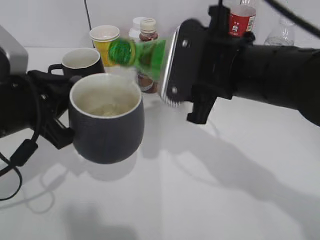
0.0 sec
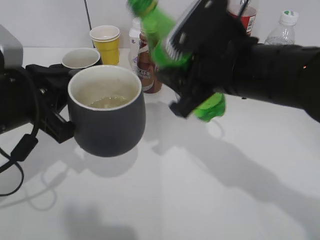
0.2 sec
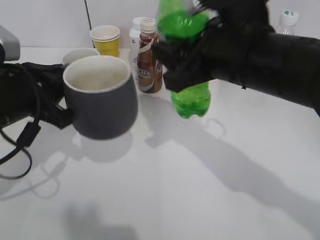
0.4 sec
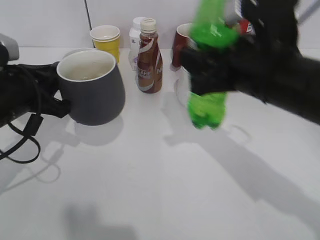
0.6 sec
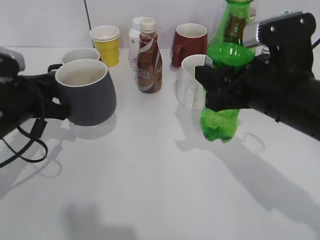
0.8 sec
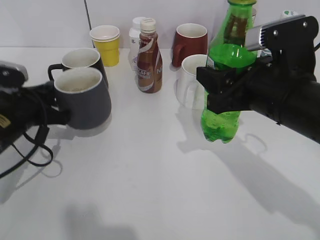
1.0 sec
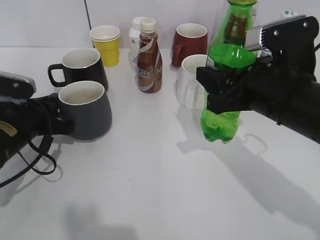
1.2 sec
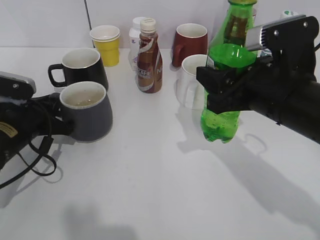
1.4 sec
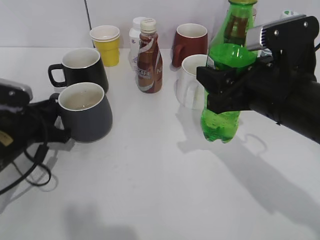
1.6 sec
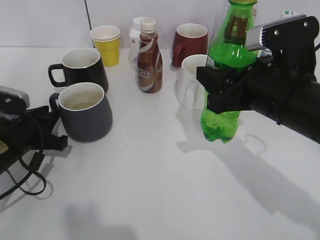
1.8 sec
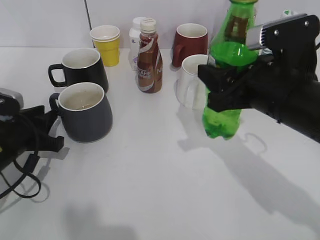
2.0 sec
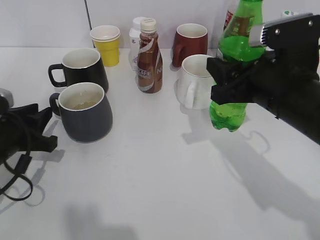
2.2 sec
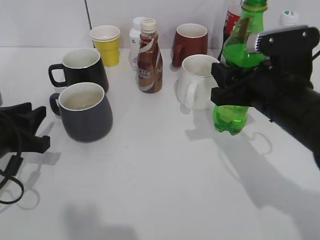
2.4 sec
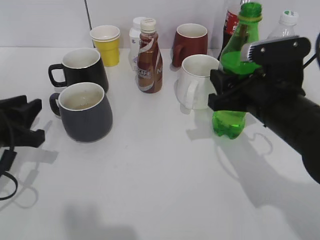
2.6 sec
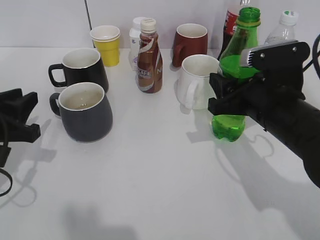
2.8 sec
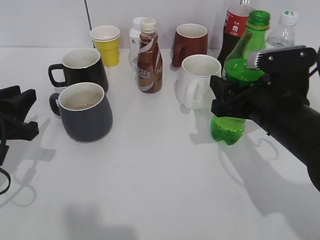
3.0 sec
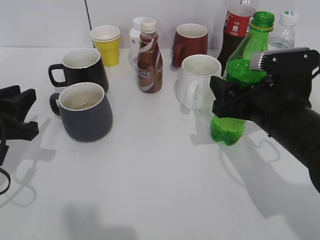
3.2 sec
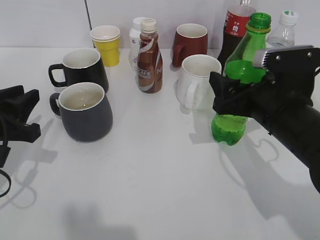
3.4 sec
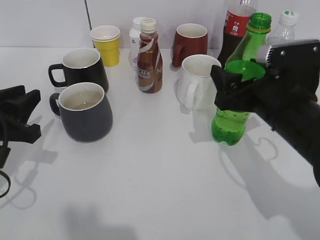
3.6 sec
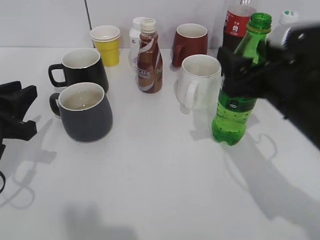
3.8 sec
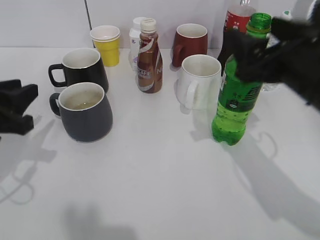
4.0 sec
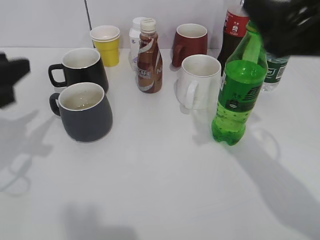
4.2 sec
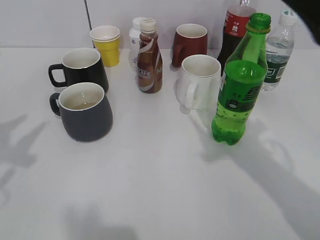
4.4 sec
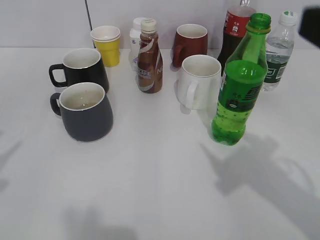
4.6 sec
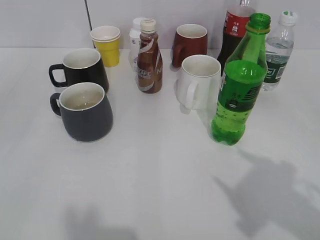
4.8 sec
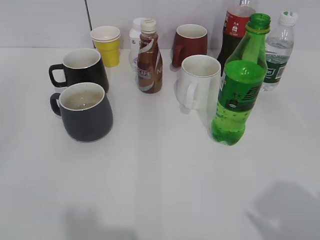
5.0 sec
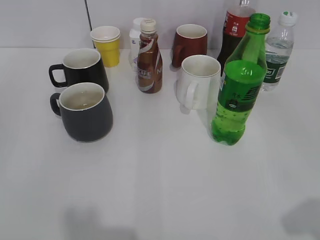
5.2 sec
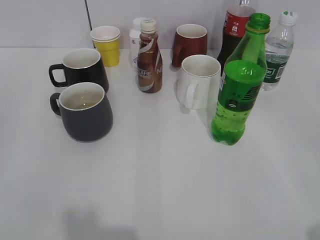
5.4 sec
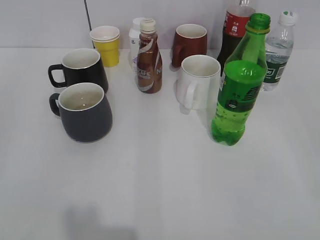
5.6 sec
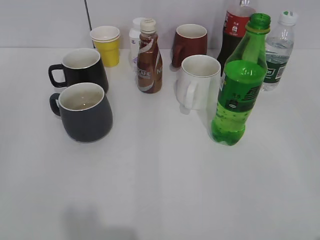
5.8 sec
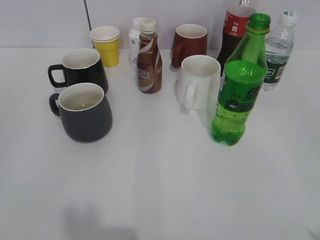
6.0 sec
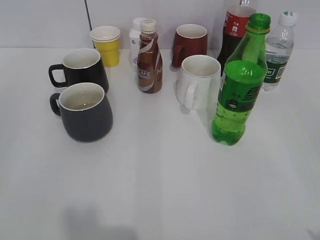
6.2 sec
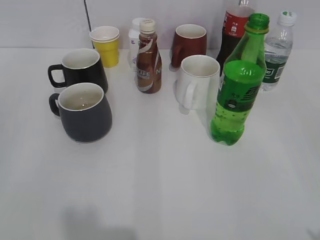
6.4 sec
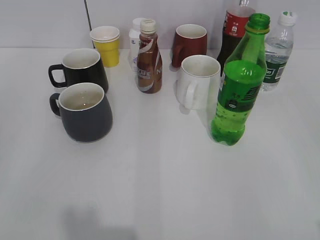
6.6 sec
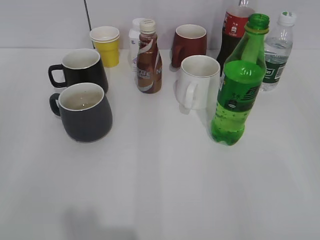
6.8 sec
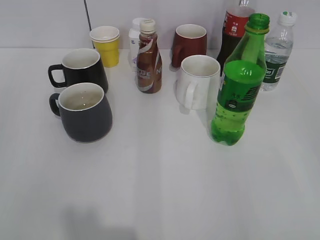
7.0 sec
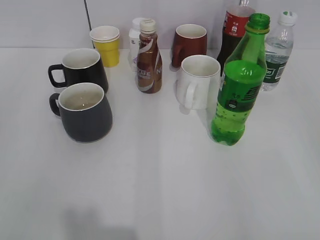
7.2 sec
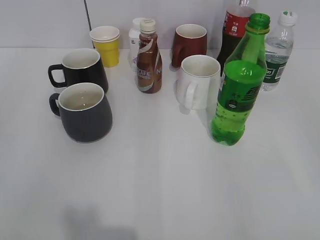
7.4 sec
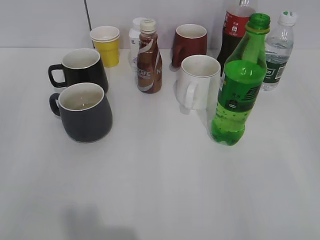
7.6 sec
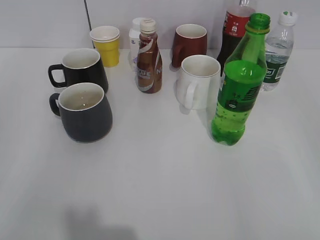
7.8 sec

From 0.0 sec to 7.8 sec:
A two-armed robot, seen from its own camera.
Step, from 0.2 sec to 1.8 sec: Place the grey cup on the table with left gripper.
Step, from 2.0 sec to 3.8 sec: Place the sprite bottle on the table with right gripper.
From 0.0 sec to 1.6 sec: The right gripper goes approximately 5 cm to the right. The left gripper goes roughly 15 cm downward and forward, and opens.
From 1.6 sec to 3.2 sec: The left gripper travels upward and backward by about 10 cm, while the right gripper changes place by roughly 5 cm, and opens up.
From 3.2 sec to 4.6 sec: Both grippers move upward and backward, some 20 cm. The left gripper opens up.
From 4.6 sec to 6.2 sec: The right gripper goes some 15 cm backward, to the right and downward.
